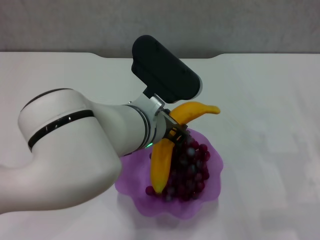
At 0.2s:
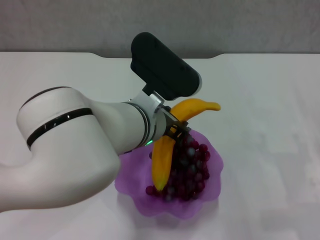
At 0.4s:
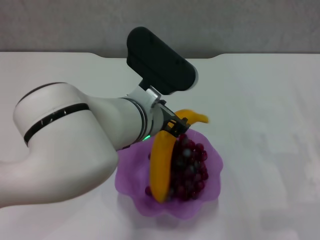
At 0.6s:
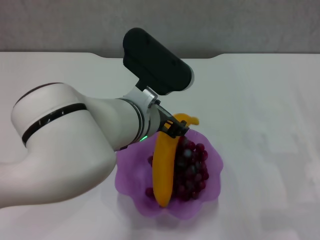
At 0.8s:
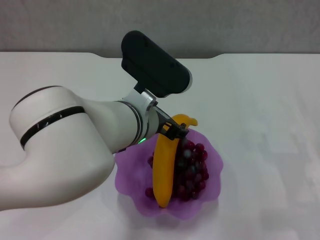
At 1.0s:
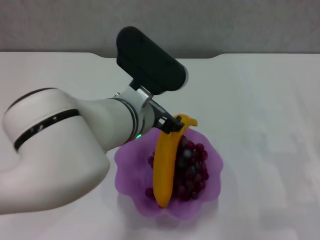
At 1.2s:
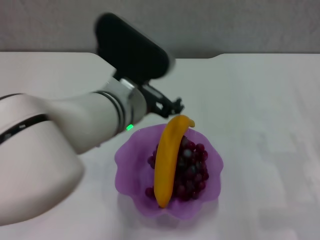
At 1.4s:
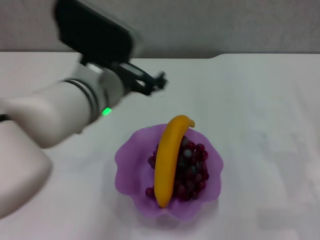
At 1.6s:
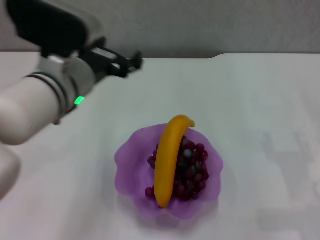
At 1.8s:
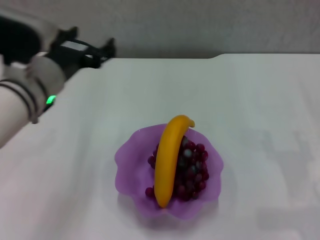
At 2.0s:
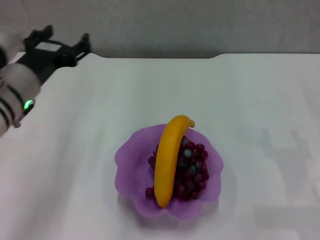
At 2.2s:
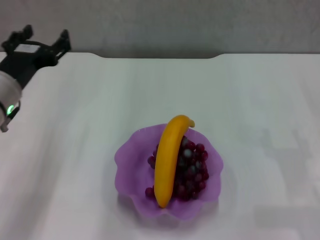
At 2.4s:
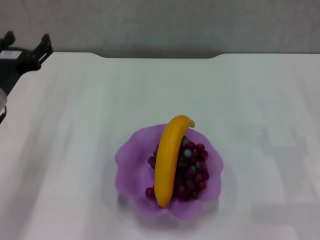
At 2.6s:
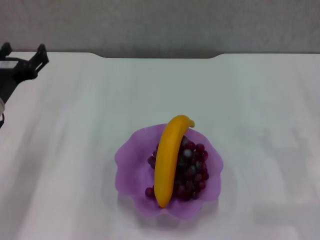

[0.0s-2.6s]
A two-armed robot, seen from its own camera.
0.0s to 1.2s: The left gripper opens.
1.2s to 2.6s: The left gripper goes approximately 20 cm to the left.
